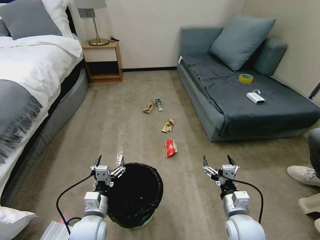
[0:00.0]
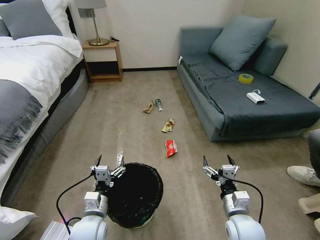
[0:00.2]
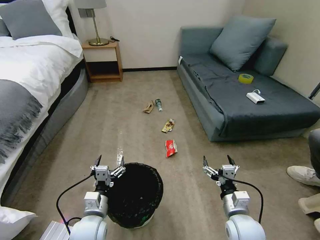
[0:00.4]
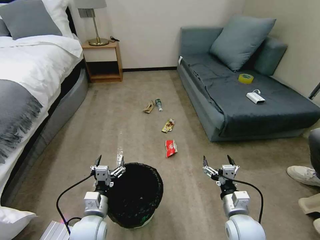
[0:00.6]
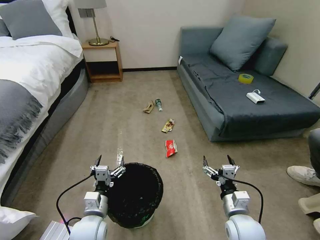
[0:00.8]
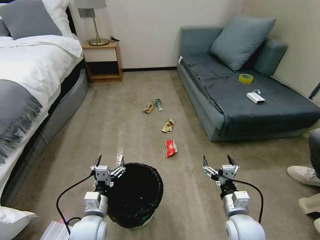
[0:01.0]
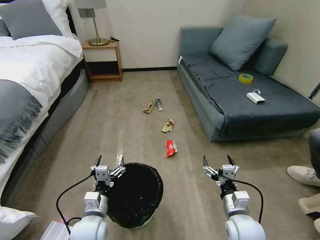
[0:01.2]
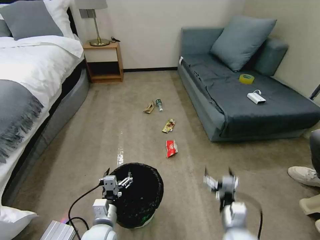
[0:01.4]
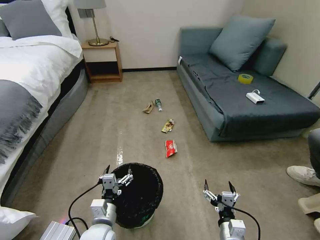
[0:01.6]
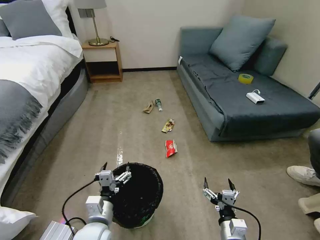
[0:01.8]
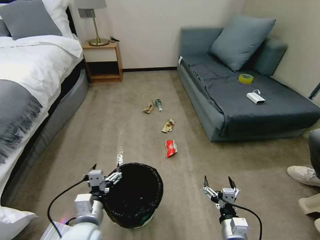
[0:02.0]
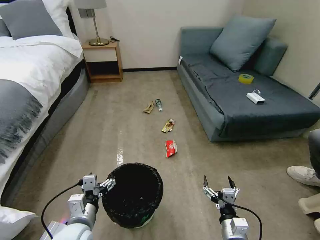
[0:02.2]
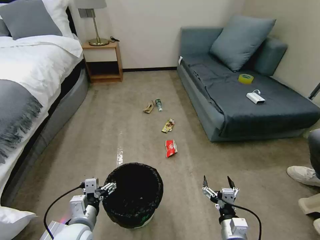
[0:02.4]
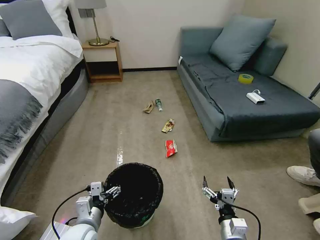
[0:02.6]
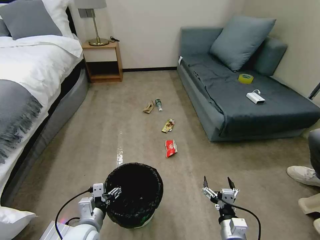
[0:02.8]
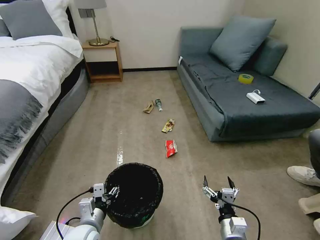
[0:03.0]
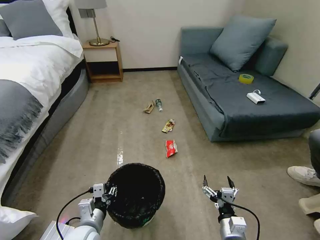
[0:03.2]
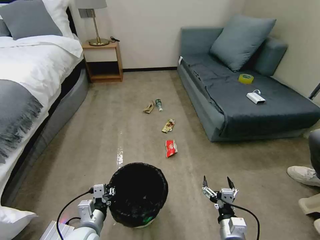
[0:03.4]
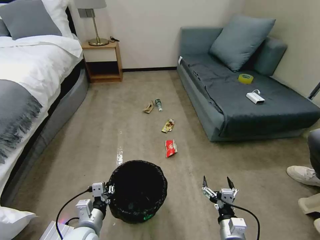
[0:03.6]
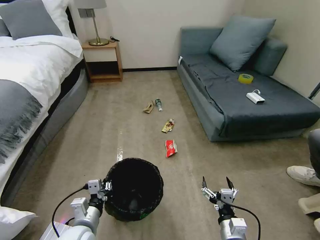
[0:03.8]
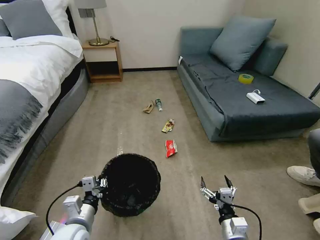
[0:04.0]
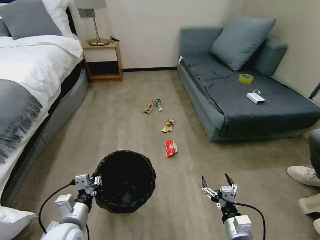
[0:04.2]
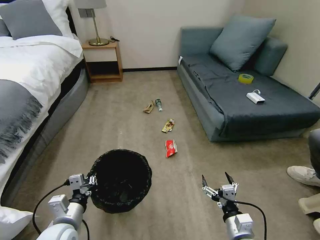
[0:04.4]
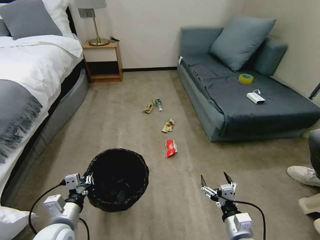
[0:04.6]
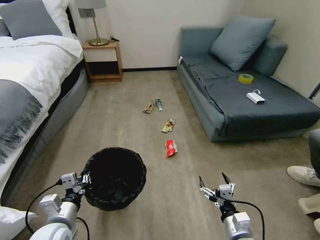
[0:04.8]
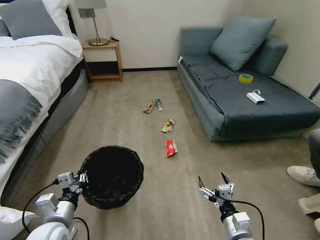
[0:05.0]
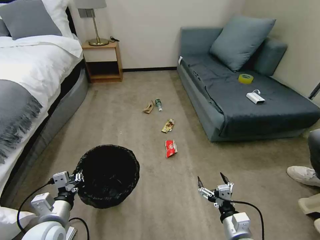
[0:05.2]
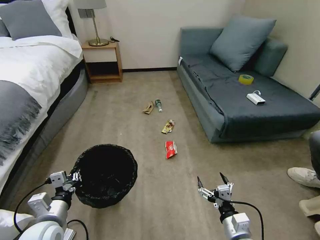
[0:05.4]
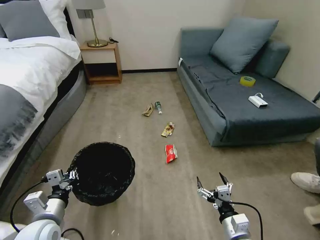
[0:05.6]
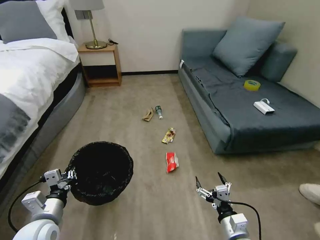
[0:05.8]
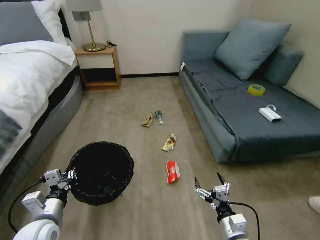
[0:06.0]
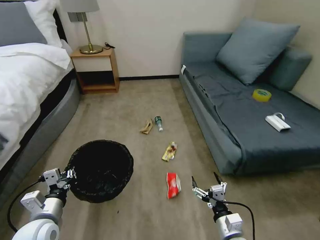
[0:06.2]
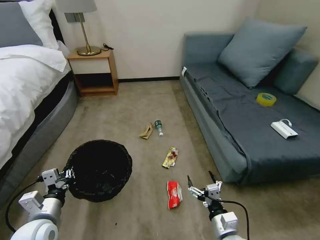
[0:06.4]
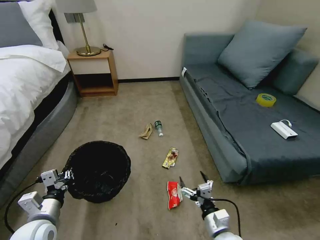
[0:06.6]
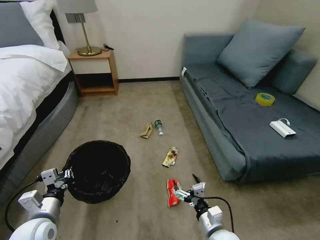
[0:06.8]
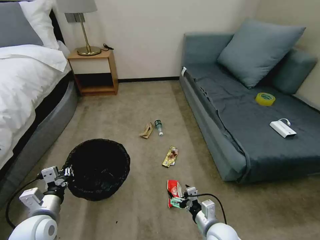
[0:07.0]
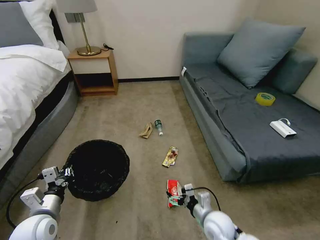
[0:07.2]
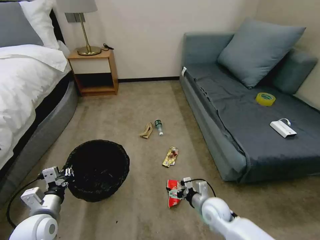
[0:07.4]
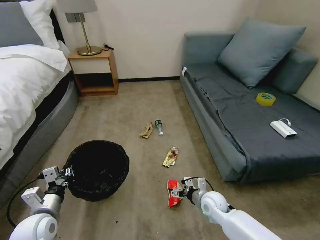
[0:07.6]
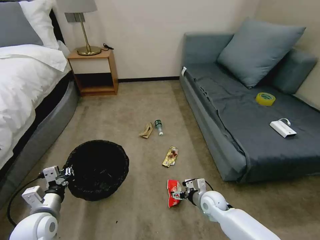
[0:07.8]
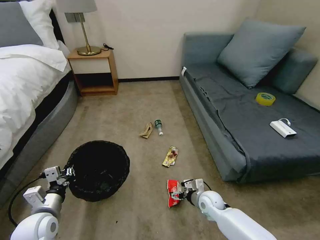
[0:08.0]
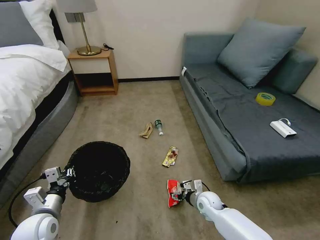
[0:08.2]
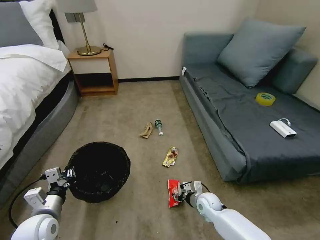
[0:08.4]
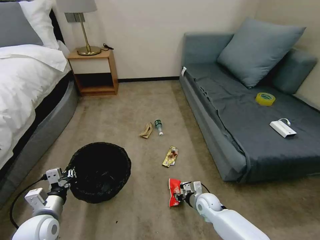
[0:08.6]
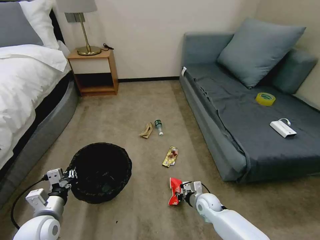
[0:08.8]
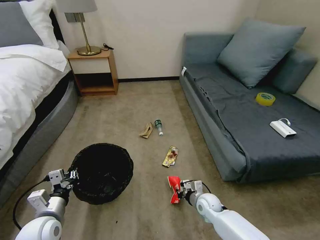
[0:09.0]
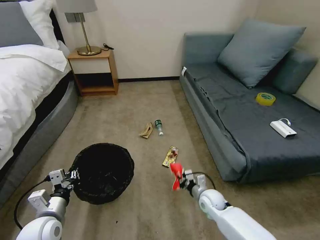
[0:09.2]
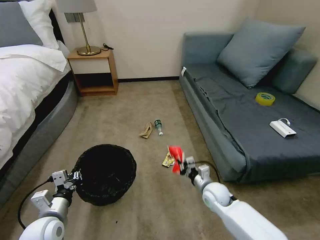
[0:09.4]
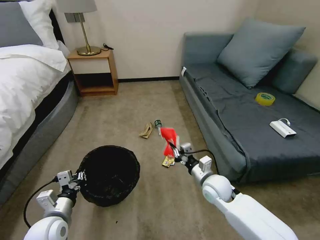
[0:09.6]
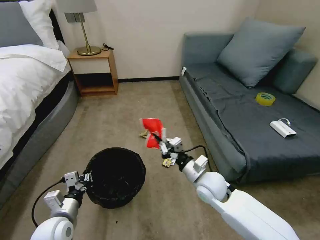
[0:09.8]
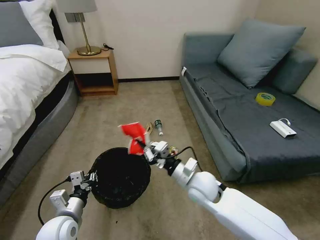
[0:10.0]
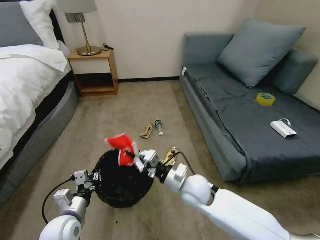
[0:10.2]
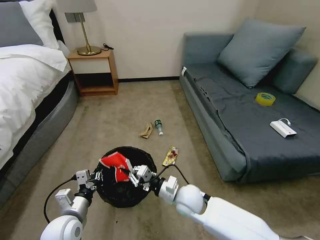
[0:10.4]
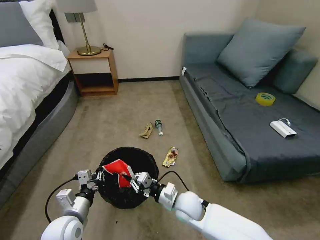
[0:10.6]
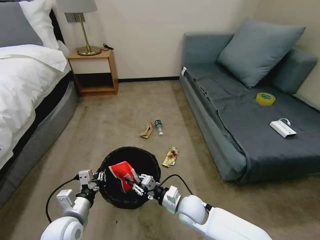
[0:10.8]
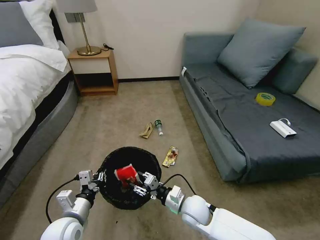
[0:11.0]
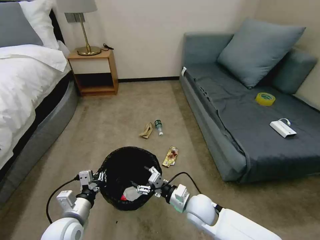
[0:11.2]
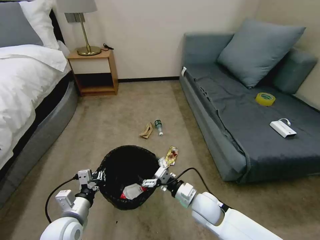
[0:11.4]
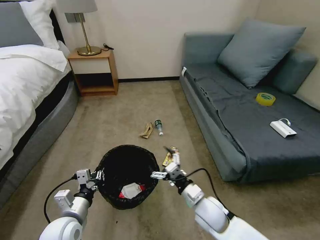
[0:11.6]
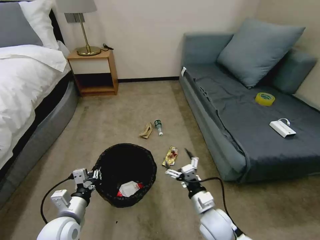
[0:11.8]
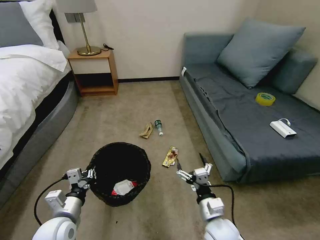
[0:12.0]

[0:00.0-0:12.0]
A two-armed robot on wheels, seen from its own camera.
Task of the whole recording: Pick up the trash bin, then pick up the garbage on the floor and place it into the trash bin.
0:01.6 to 0:03.0: The left gripper closes.
0:03.0 to 0:04.4: The left gripper shifts by approximately 5 cm, and closes its fingers.
0:04.4 to 0:06.0: The left gripper moves roughly 5 cm.
0:06.0 to 0:07.6: The right gripper moves forward, some 15 cm.
0:07.6 to 0:09.0: The right gripper is displaced downward by some 5 cm, and closes up.
0:09.0 to 0:10.4: The right gripper goes some 15 cm upward and to the left, while the left gripper heads to the right, covering approximately 5 cm.
0:10.4 to 0:12.0: The right gripper goes some 15 cm backward and to the right, and opens its fingers.

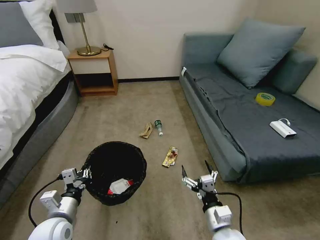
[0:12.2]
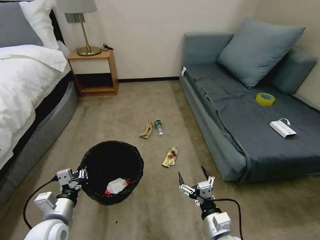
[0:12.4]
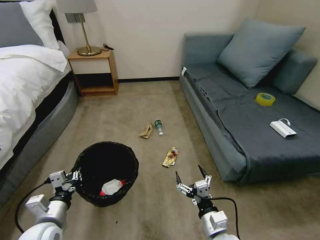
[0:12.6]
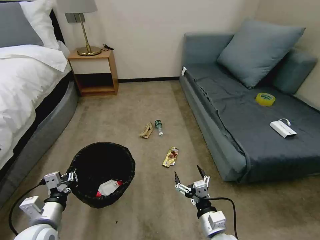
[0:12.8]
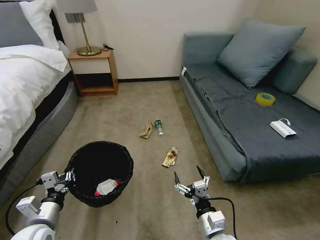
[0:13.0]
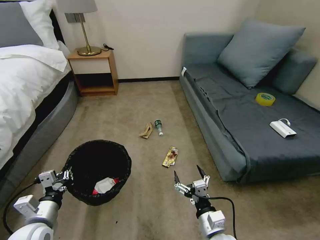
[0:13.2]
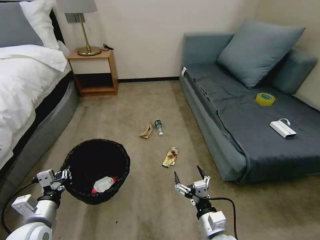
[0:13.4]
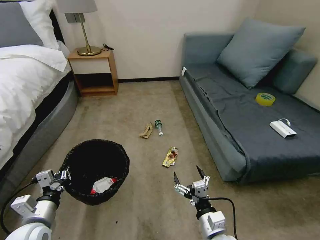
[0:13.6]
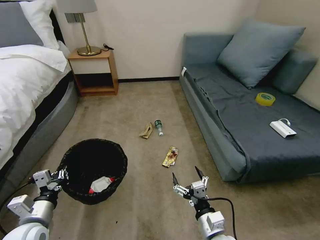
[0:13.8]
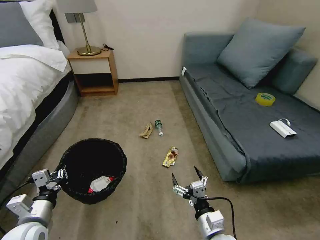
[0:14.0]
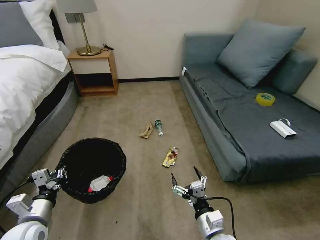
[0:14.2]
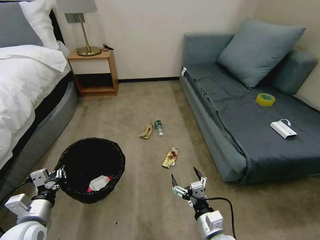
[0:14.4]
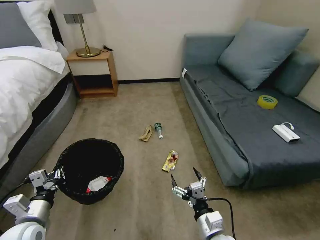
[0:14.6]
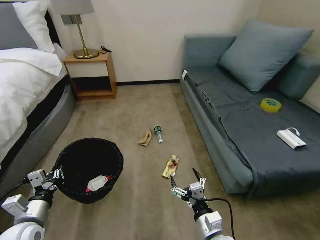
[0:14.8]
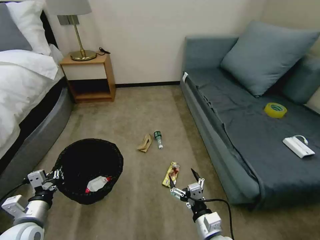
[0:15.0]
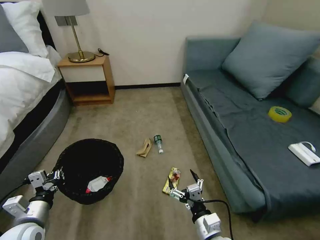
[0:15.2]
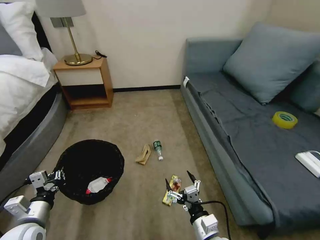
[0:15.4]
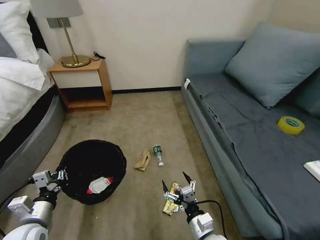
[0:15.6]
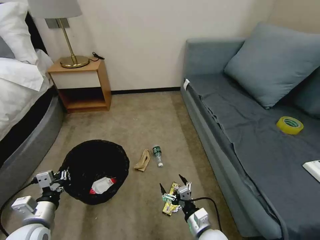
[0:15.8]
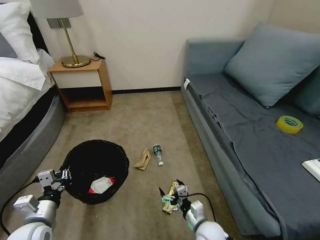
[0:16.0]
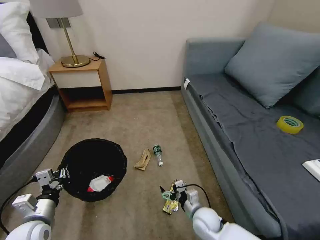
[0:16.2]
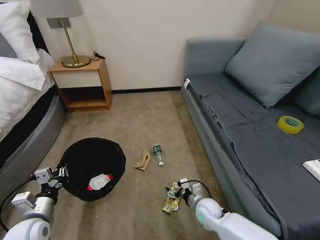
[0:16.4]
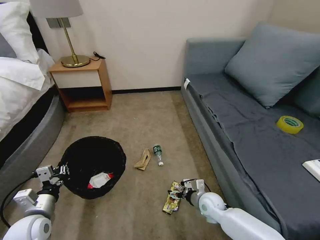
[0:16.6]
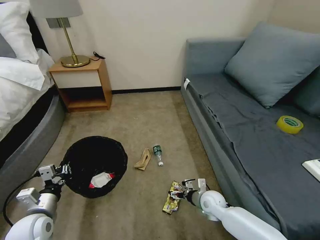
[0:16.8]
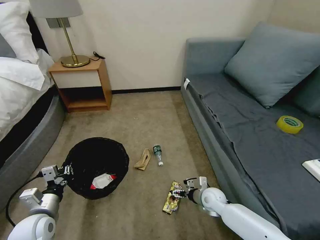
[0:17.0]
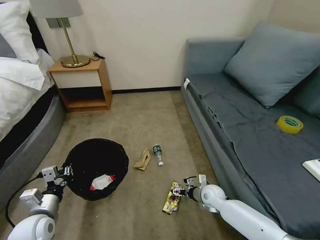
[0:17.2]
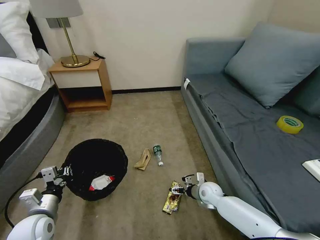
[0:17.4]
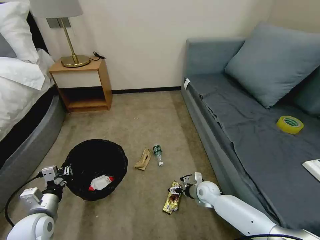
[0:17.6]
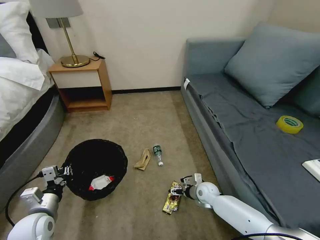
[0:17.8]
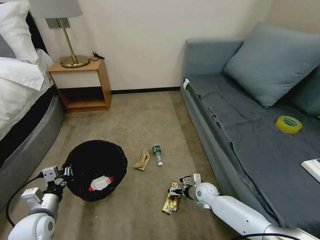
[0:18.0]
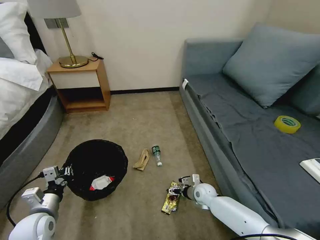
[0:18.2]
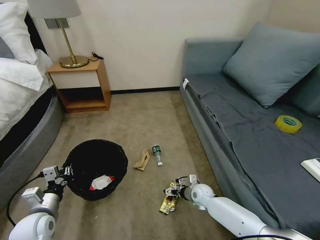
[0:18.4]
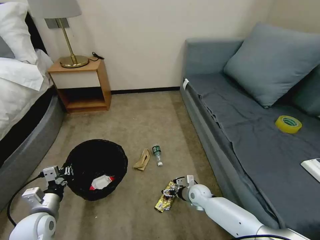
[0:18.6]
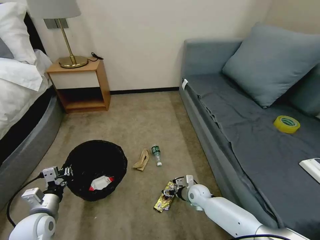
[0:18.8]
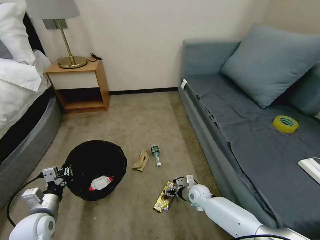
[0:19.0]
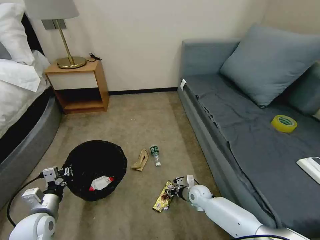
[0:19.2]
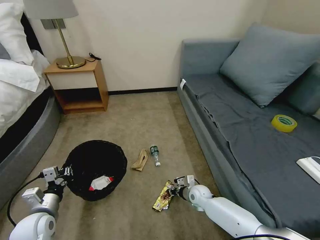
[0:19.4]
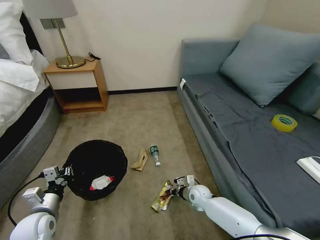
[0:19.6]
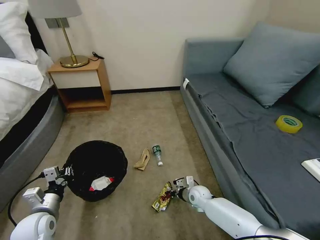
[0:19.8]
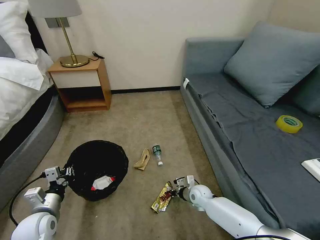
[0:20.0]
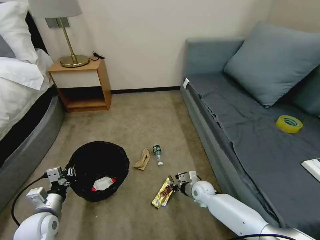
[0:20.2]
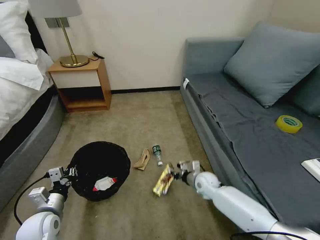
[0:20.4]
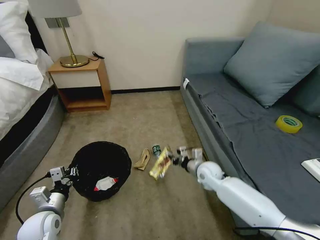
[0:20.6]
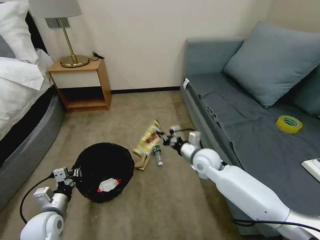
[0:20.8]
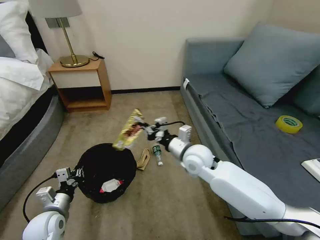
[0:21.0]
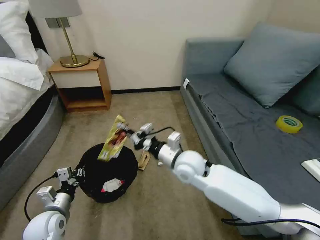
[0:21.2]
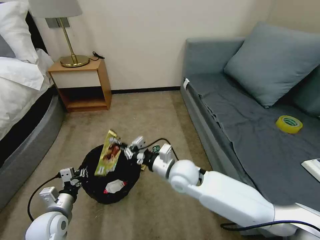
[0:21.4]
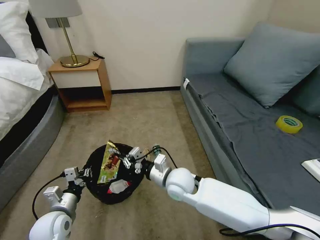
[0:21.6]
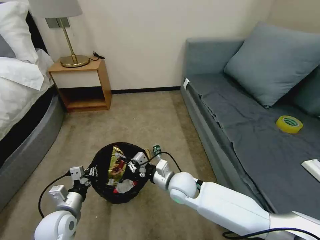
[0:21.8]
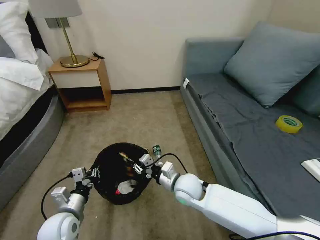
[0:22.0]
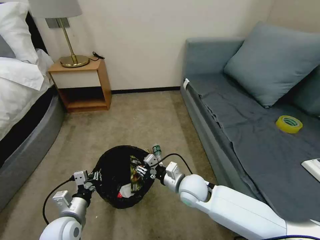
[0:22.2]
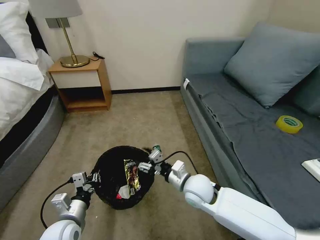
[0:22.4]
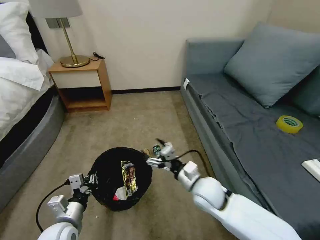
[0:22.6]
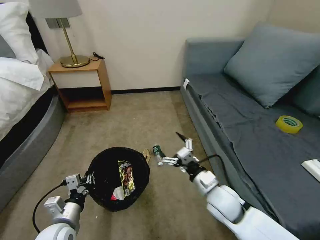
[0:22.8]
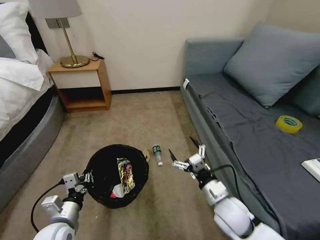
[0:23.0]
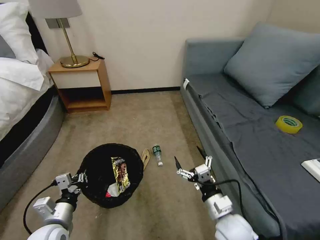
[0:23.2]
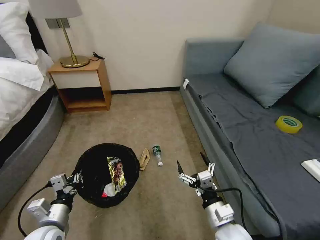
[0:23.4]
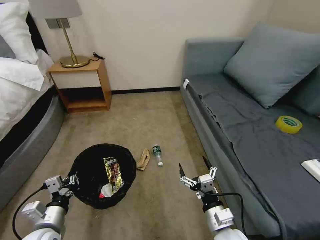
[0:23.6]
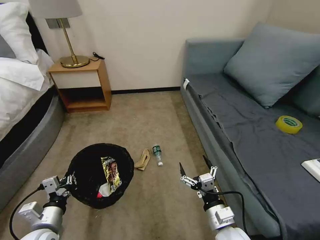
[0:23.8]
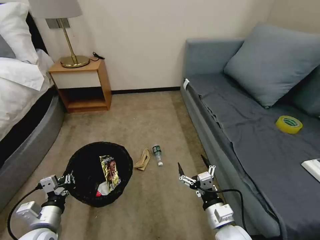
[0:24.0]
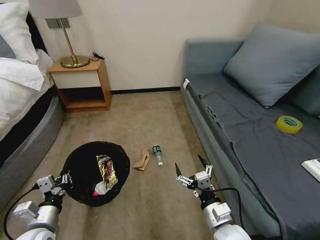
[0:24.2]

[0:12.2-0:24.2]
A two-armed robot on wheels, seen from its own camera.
Task of the whole recording: Pick up the trash bin, then pick up the garbage on the floor and place it into the trash bin.
0:12.2 to 0:13.8: The left gripper moves to the left, about 5 cm.
0:15.2 to 0:16.6: The right gripper travels forward and downward by about 20 cm.
0:16.6 to 0:18.2: The right gripper moves forward, roughly 5 cm.
0:18.2 to 0:19.8: The right gripper closes its fingers.
0:19.8 to 0:21.2: The right gripper heads upward, covering roughly 30 cm.
0:21.2 to 0:22.6: The right gripper travels backward, to the right and downward by some 10 cm, and opens. Meanwhile the left gripper shifts some 5 cm to the right.
0:22.6 to 0:24.2: The left gripper changes place by roughly 5 cm. Meanwhile the right gripper shifts some 10 cm backward.
